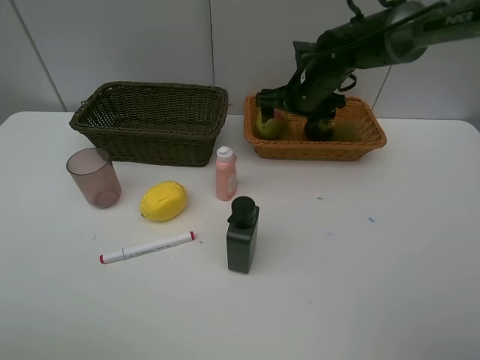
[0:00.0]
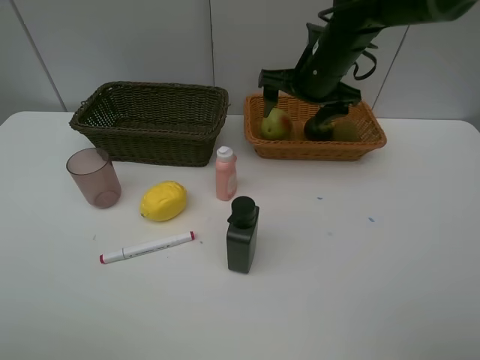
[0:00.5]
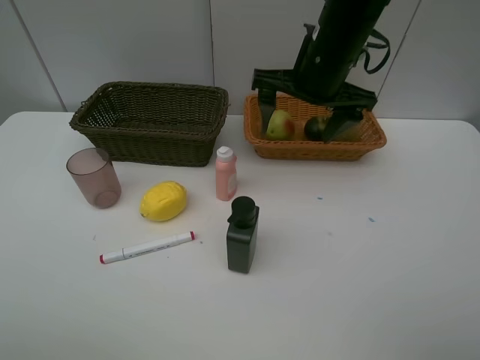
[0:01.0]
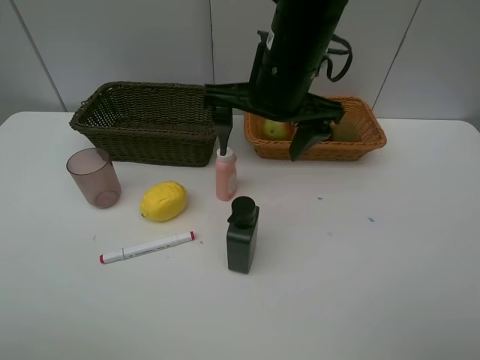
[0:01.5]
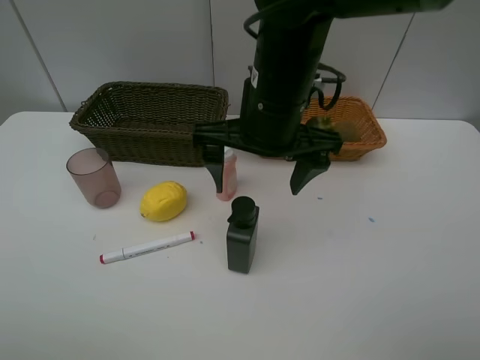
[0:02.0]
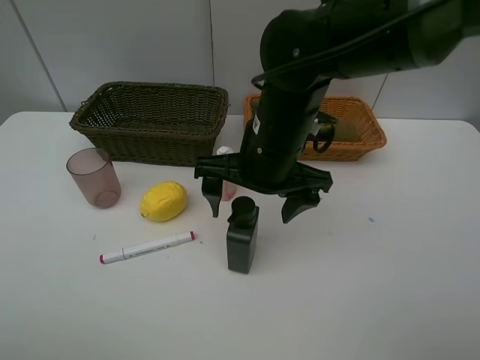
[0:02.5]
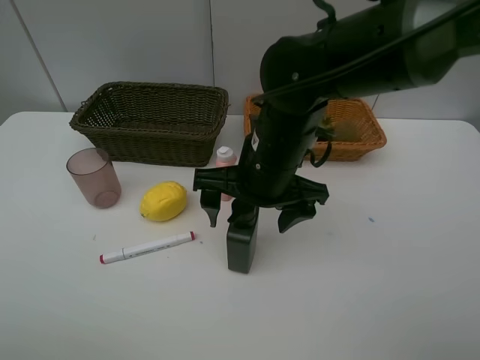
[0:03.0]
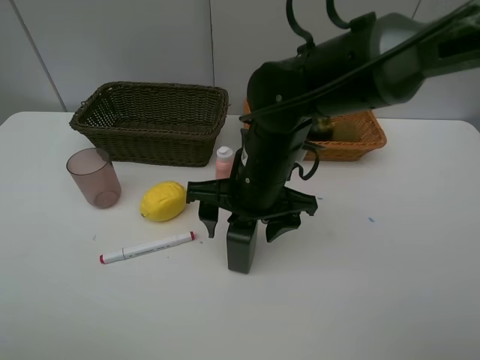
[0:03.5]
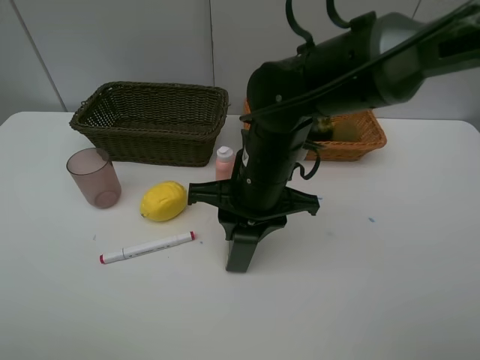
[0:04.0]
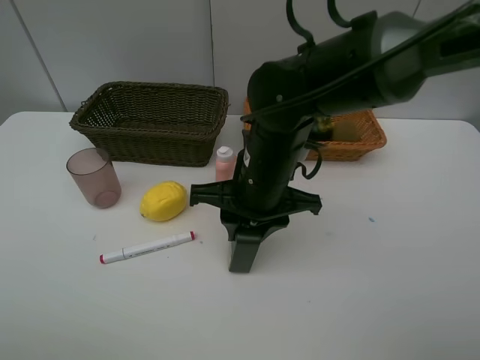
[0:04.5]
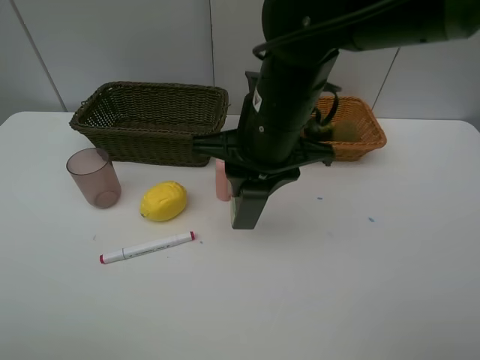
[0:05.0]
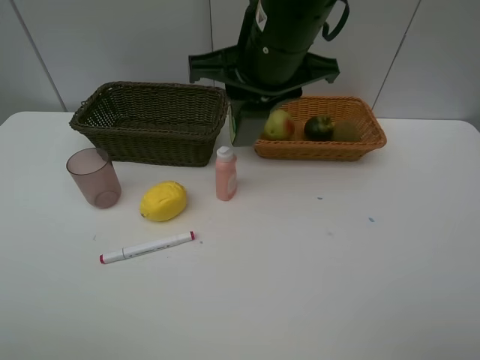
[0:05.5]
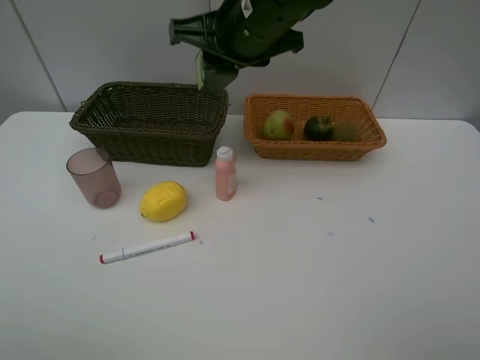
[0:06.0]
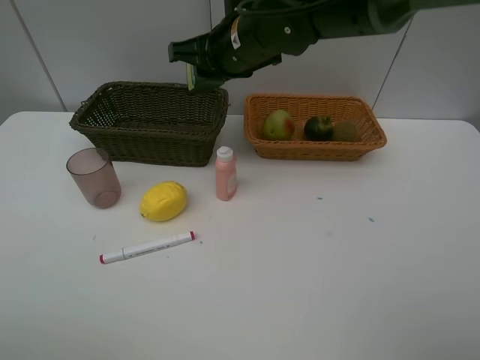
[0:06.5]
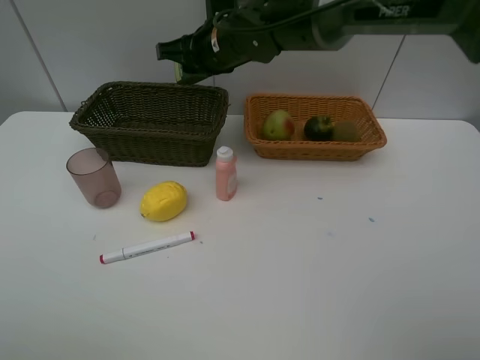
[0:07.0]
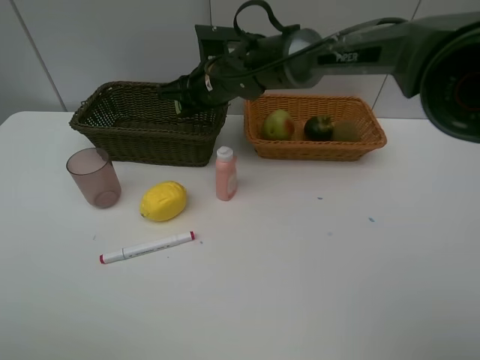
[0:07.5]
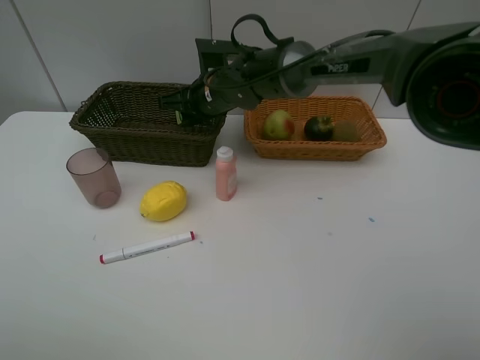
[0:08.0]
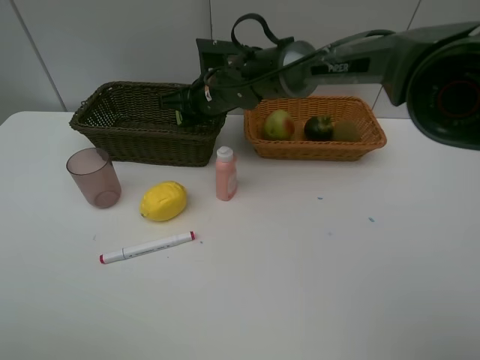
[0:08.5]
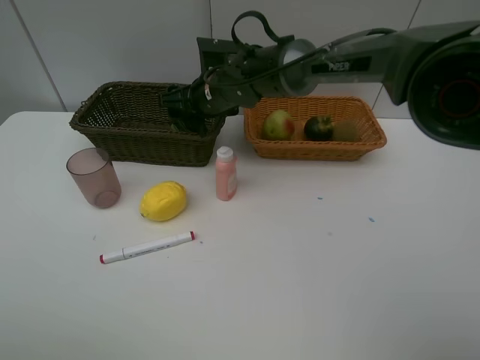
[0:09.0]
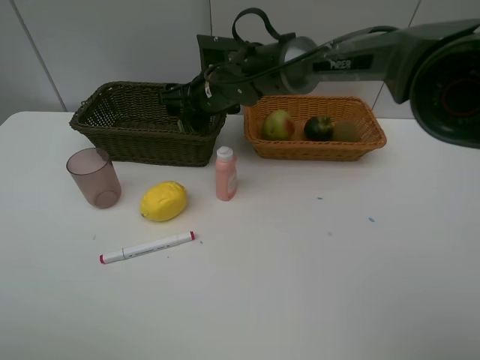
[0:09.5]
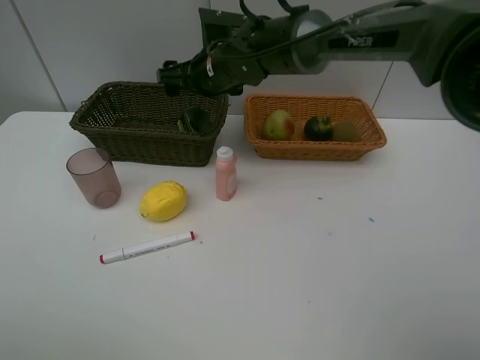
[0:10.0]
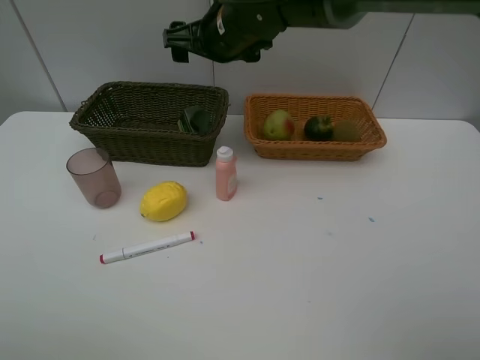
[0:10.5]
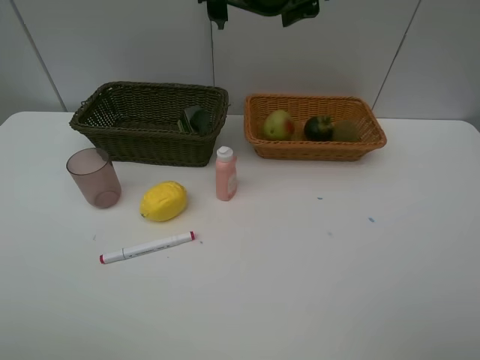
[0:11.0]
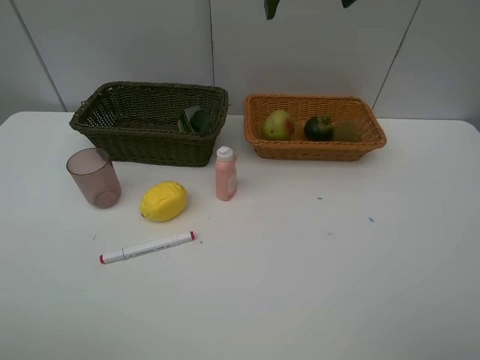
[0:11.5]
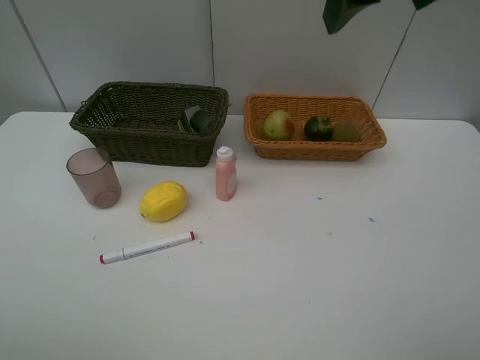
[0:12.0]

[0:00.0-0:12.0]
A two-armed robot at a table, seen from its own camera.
Task of the whole recording: Place multiple objects separately in different baskets.
Step, 0:00.0 to 0:04.5: Pick up the hard facial cleanser with right gripper.
Step, 0:05.0 to 0:09.5: Place the hard facial cleanser in the dark basket with right gripper.
0:00.0 to 0:02.0: The right gripper goes some 20 cm backward and to the left.
0:02.0 to 0:04.0: The right gripper is displaced downward by some 10 cm, and closes up.
0:04.0 to 0:06.0: The right gripper moves upward and forward, some 15 cm.
0:06.0 to 0:08.0: The right gripper is displaced downward and forward by about 15 cm.
0:08.0 to 0:10.0: The right gripper opens up.
0:10.0 to 0:12.0: The right gripper moves backward, upward and to the right, approximately 35 cm.

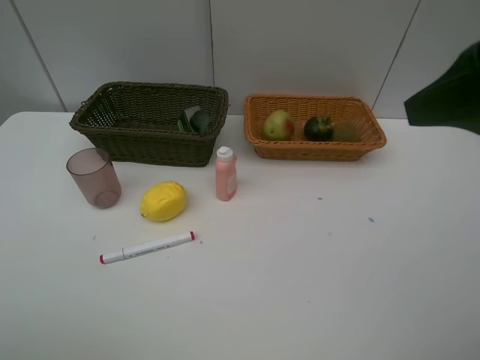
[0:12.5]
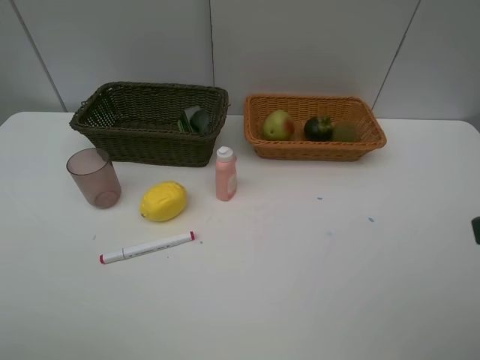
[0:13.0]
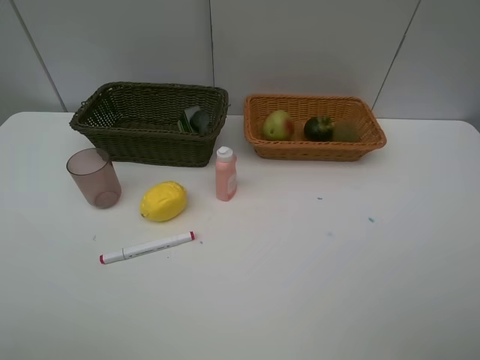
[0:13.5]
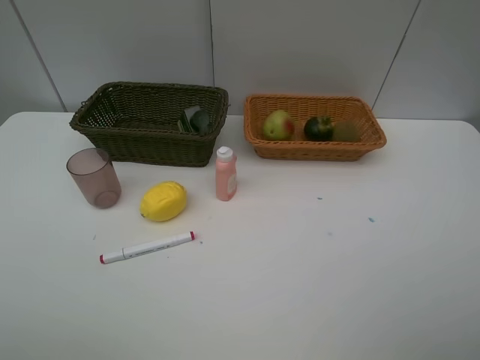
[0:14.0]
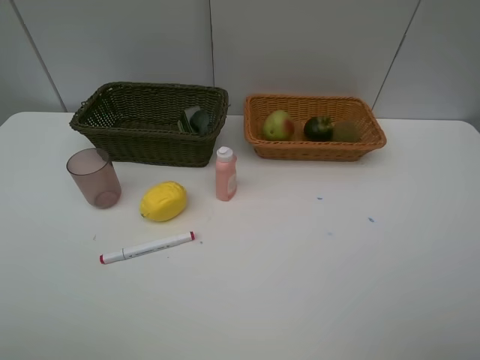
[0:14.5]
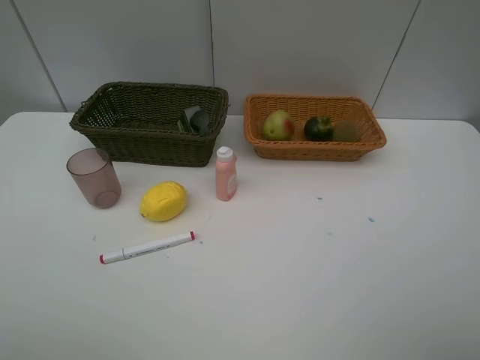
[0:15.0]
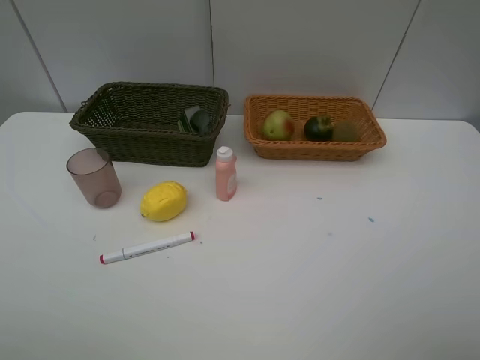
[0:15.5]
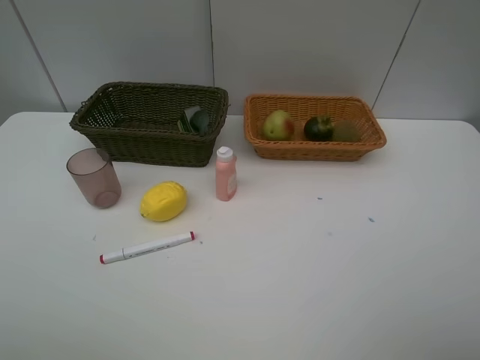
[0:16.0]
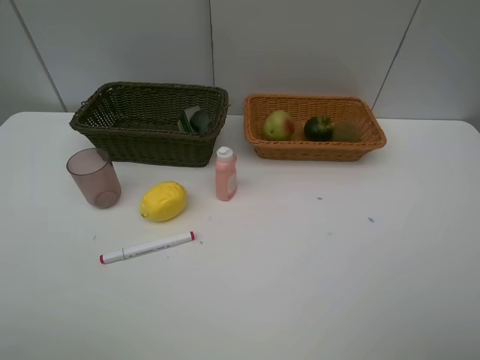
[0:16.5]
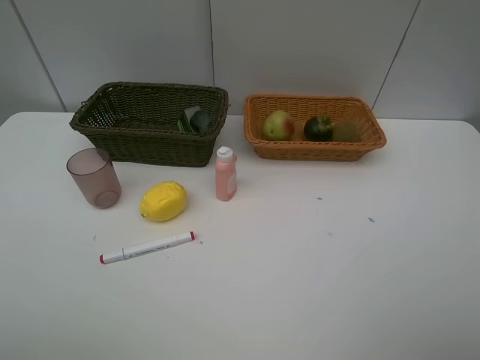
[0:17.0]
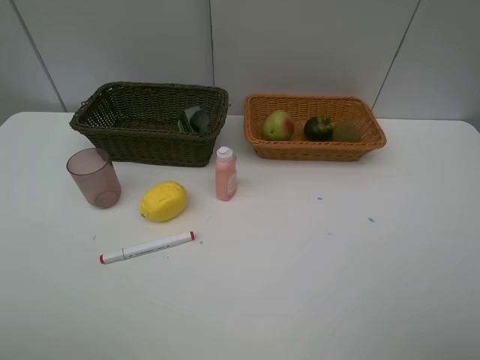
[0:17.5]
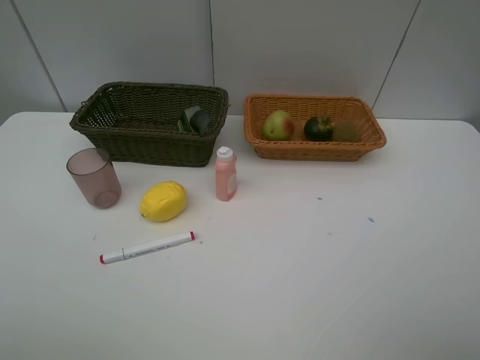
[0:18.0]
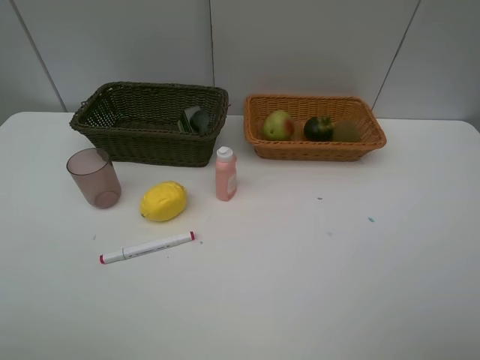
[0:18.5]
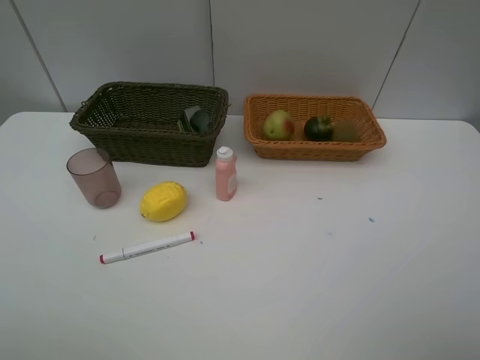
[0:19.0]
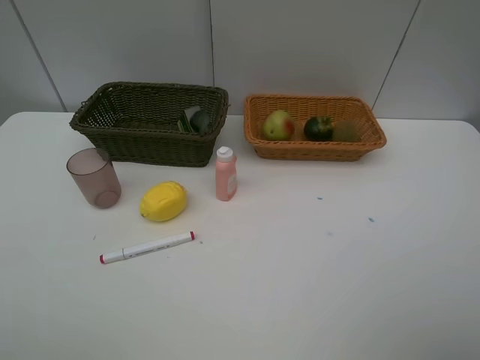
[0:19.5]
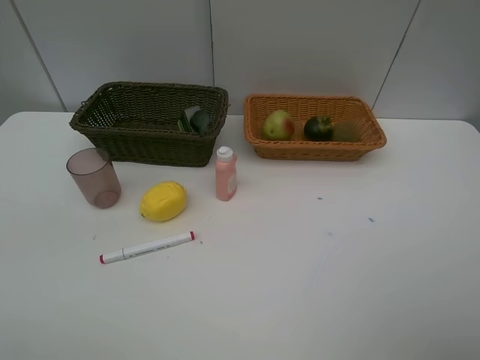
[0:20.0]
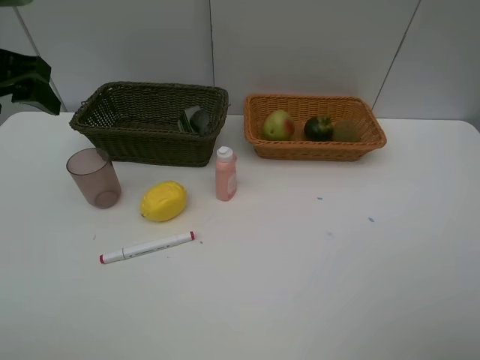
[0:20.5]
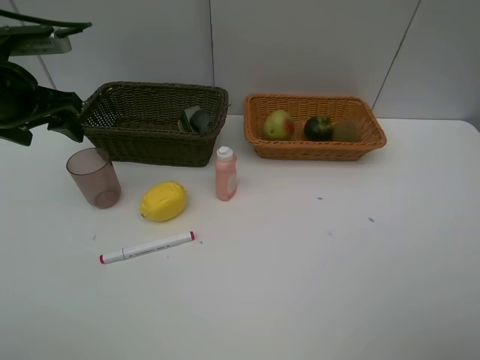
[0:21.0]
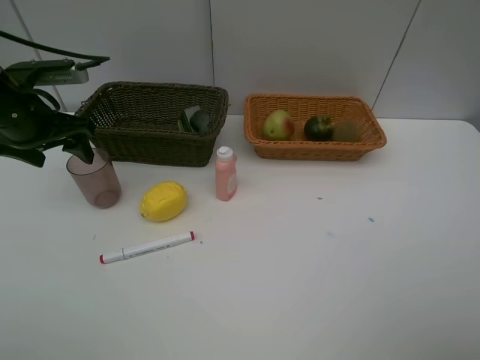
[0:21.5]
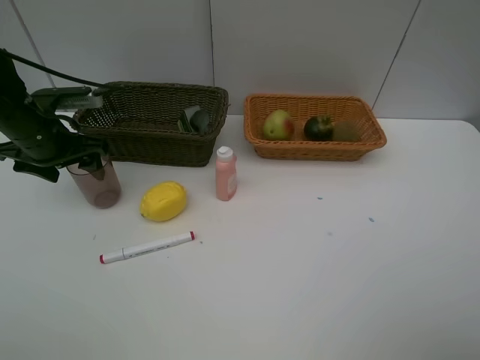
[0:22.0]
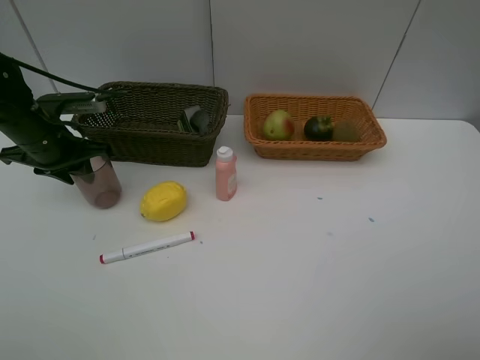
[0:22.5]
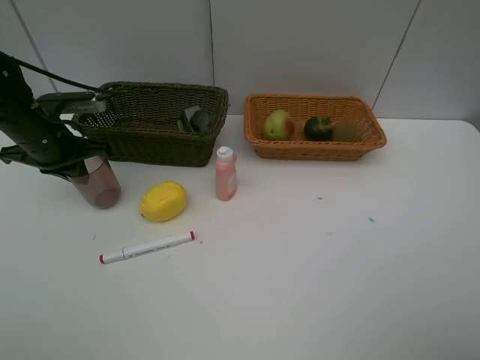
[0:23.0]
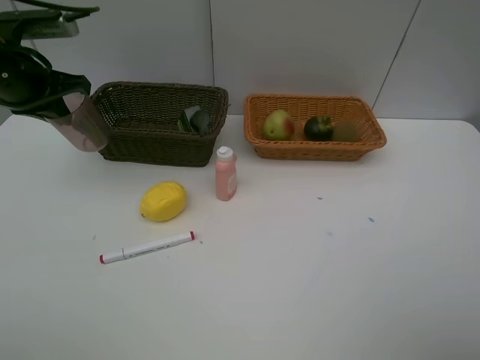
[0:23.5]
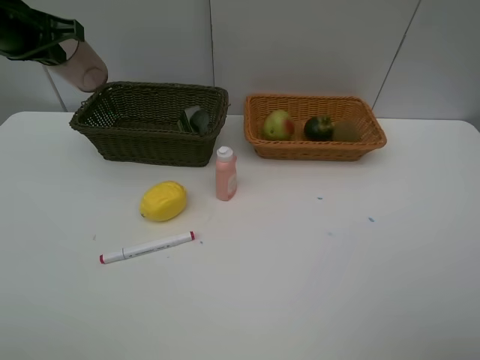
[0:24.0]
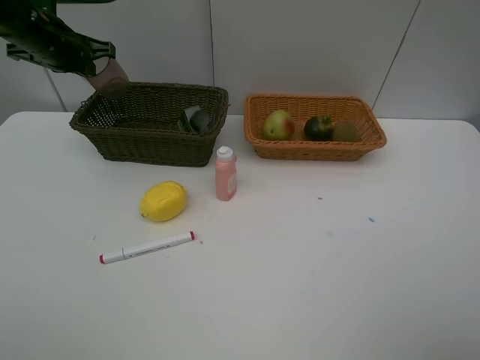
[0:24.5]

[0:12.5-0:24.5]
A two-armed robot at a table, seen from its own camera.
Task of the whole recording: Place multiple objects separately in different baskets.
Step, 0:12.5 to 0:23.0: Pick up the red cup with left gripper.
0:12.5 to 0:14.5: The right gripper goes about 20 cm backward, to the right and downward.
0:16.5 to 0:18.5: Both grippers stay about where they are.
0:18.5 to 0:20.5: The left gripper shifts roughly 30 cm forward.
0:20.5 to 0:22.5: The left gripper is displaced downward and forward by some 15 cm, and closes its fingers.
0:22.5 to 0:24.5: The left gripper heads forward and upward, covering about 15 cm.

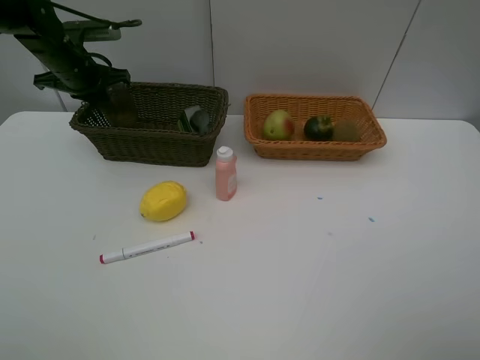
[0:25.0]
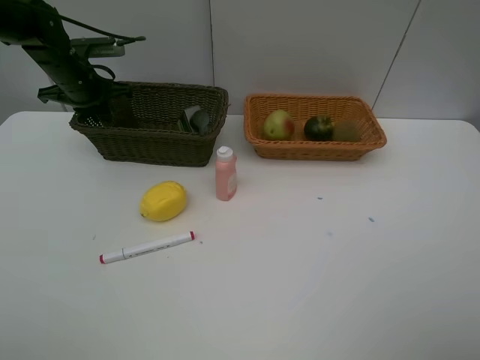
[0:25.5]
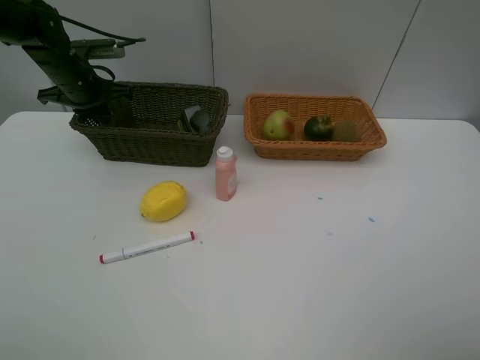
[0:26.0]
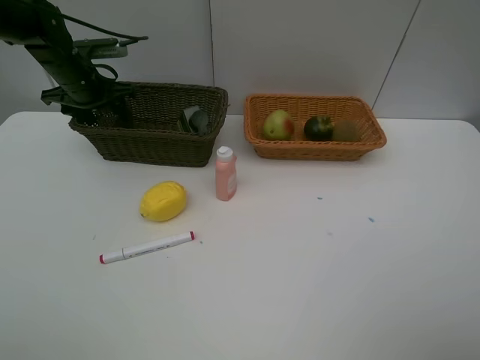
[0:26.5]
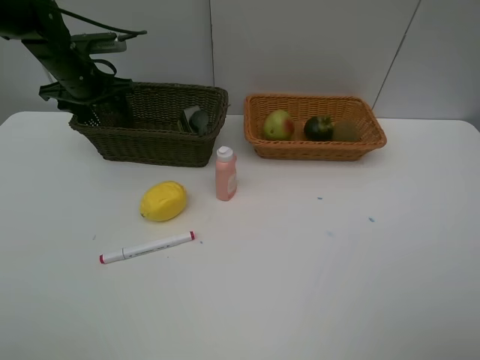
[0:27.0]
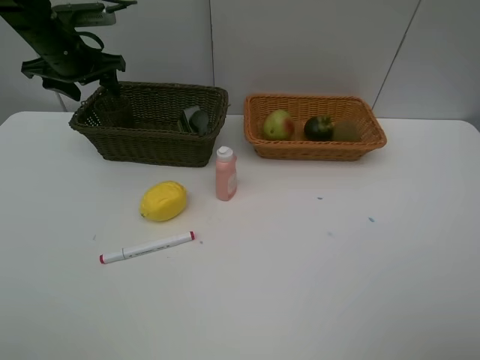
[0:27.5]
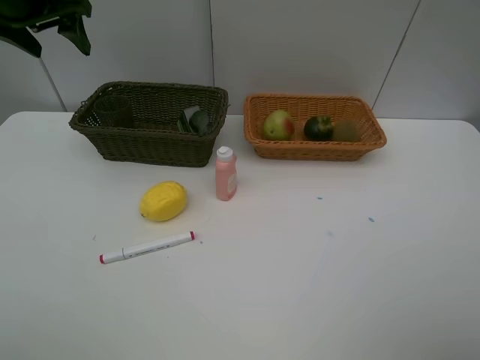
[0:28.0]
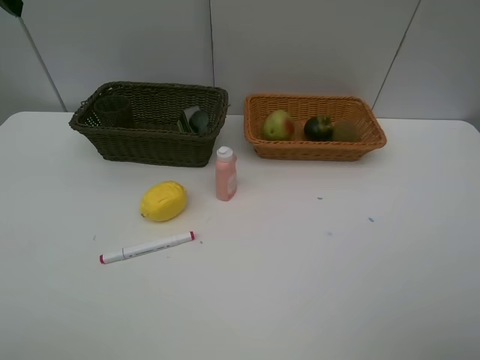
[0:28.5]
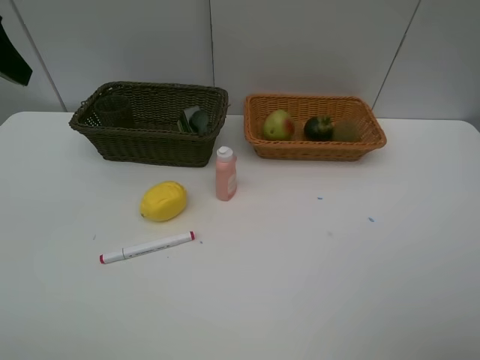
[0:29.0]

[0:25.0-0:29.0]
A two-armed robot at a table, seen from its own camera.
Task of the whole recording: Place multiple objects separately in different baskets.
Step, 0:25.0 to 0:27.5: Place the red cup in the dark basket with left gripper.
0:25.0 to 0:27.0: The left gripper opens up.
0:27.0 to 0:29.0: The left gripper moves backward and upward, roughly 30 cm.
